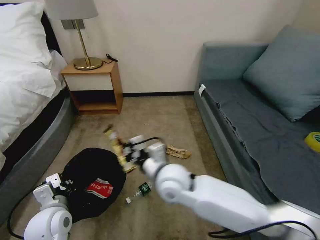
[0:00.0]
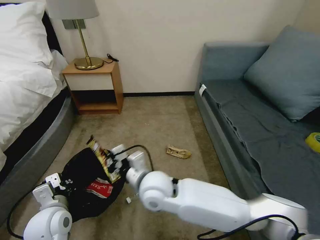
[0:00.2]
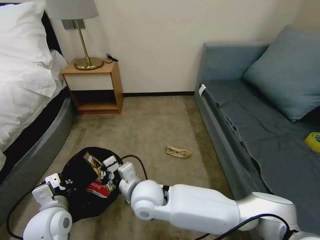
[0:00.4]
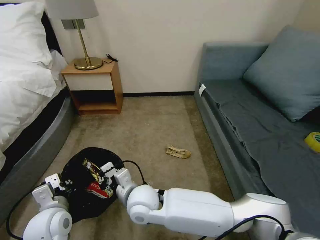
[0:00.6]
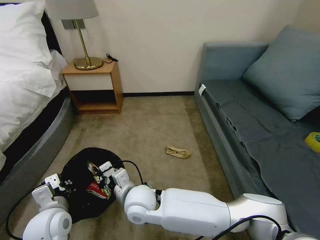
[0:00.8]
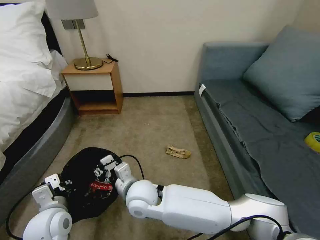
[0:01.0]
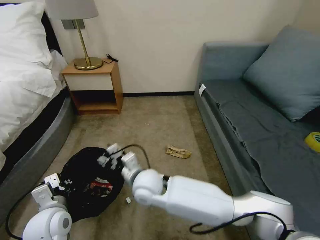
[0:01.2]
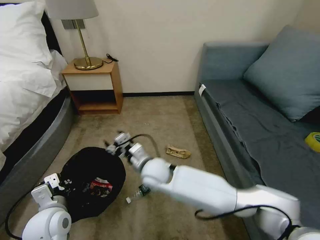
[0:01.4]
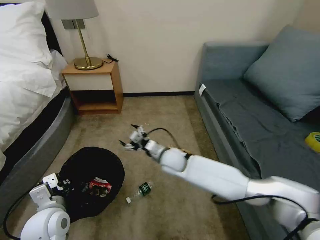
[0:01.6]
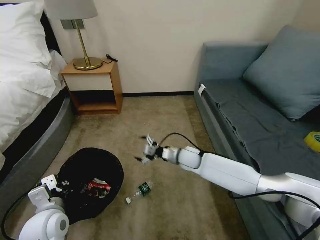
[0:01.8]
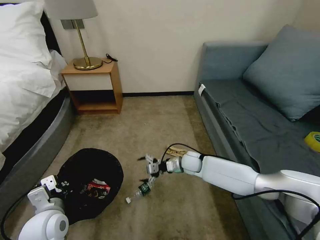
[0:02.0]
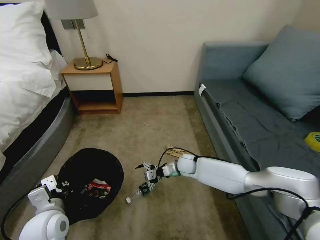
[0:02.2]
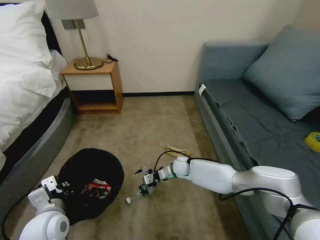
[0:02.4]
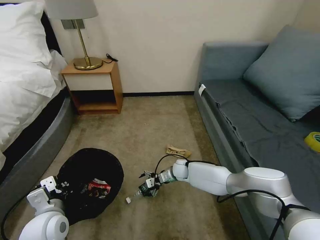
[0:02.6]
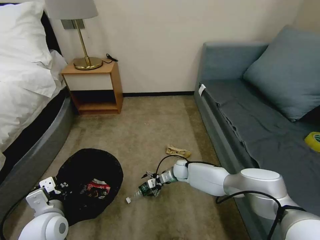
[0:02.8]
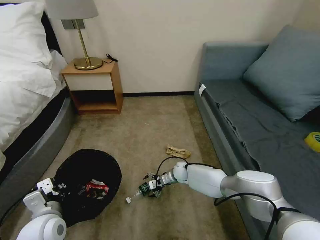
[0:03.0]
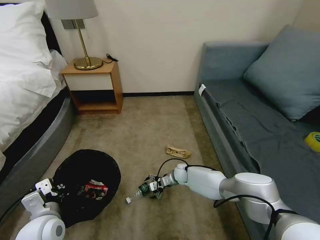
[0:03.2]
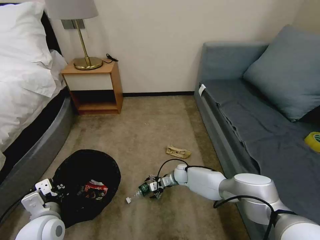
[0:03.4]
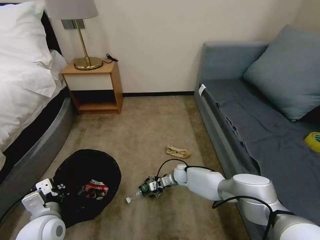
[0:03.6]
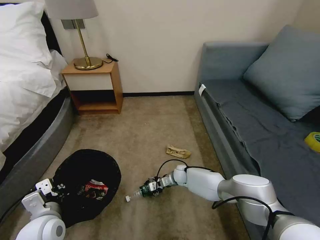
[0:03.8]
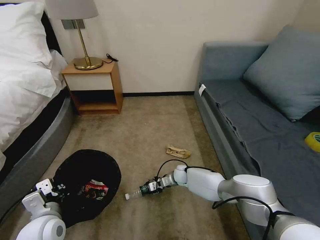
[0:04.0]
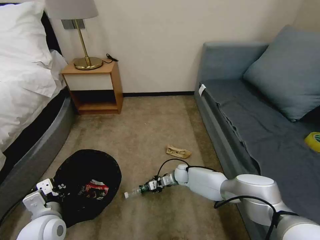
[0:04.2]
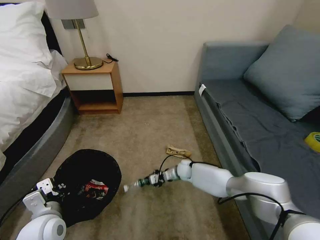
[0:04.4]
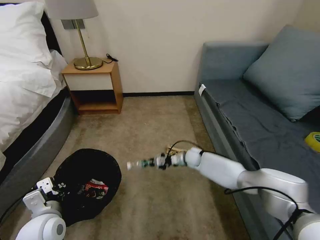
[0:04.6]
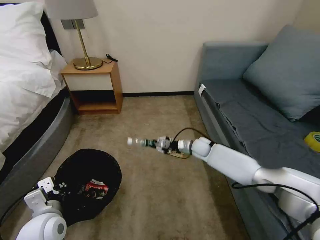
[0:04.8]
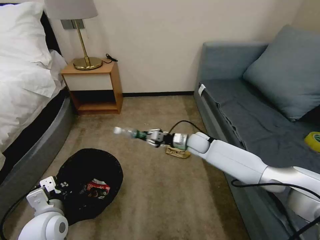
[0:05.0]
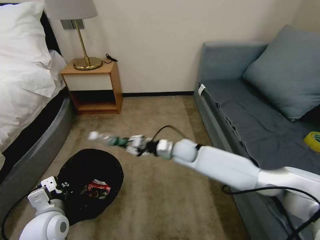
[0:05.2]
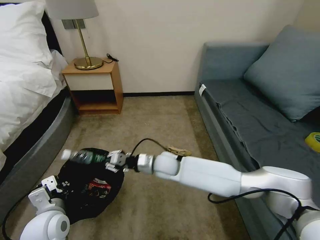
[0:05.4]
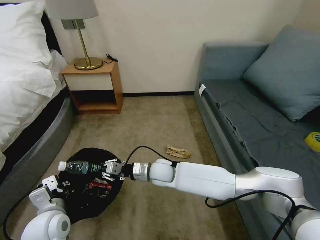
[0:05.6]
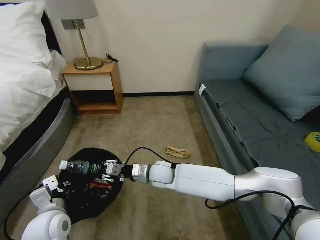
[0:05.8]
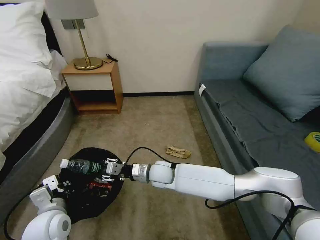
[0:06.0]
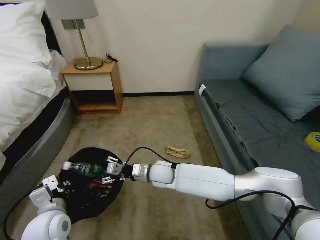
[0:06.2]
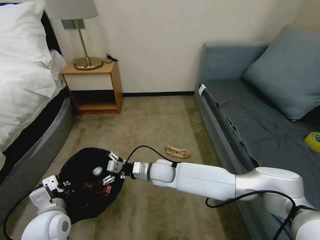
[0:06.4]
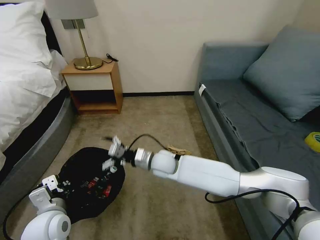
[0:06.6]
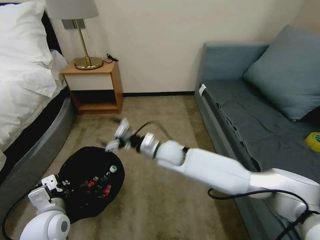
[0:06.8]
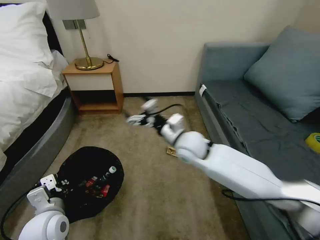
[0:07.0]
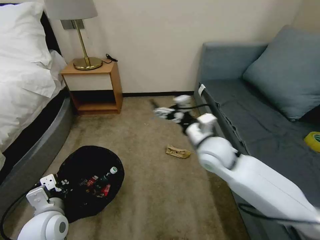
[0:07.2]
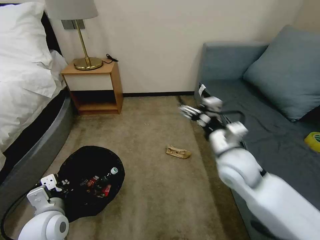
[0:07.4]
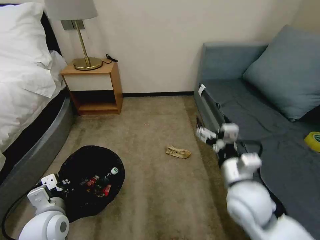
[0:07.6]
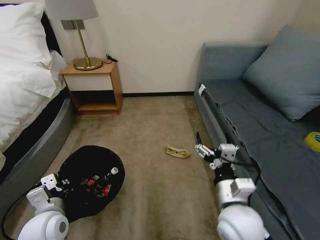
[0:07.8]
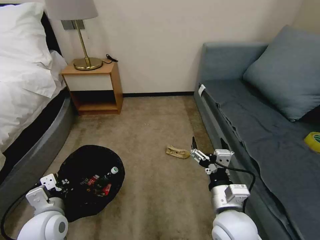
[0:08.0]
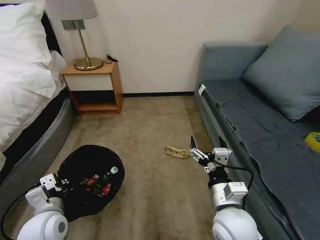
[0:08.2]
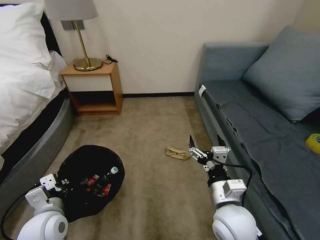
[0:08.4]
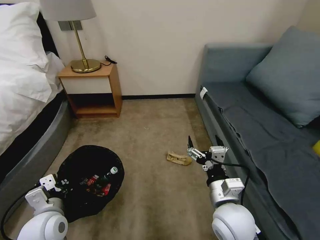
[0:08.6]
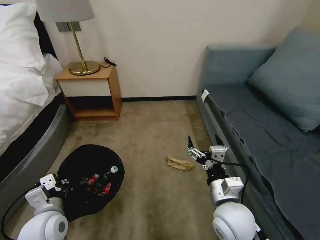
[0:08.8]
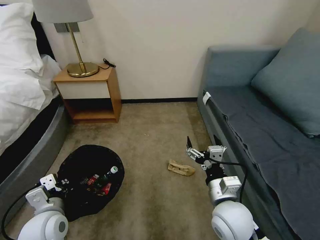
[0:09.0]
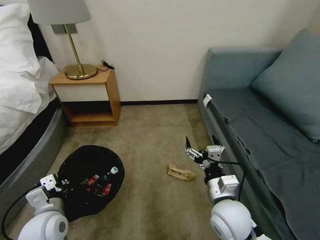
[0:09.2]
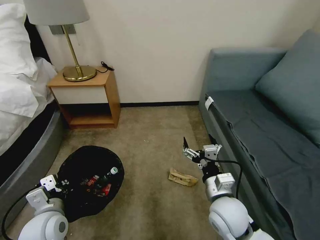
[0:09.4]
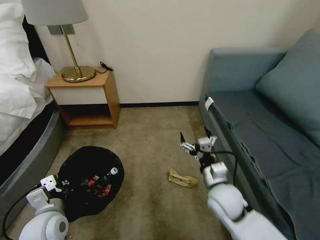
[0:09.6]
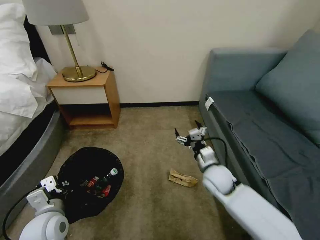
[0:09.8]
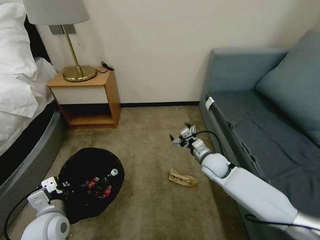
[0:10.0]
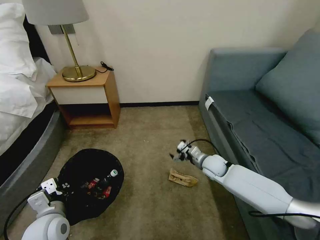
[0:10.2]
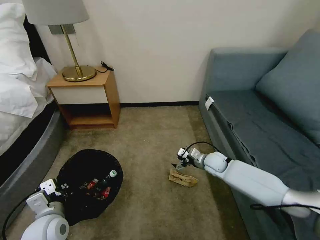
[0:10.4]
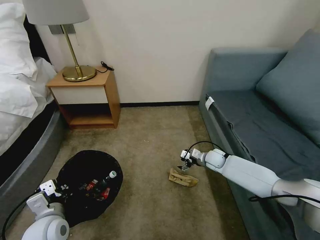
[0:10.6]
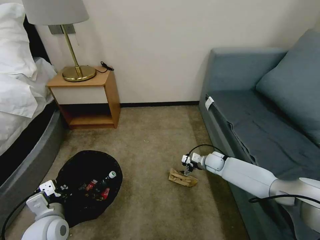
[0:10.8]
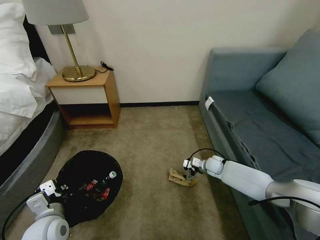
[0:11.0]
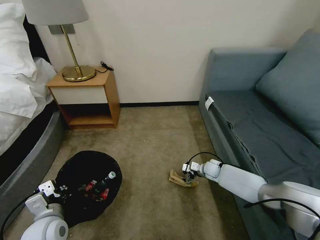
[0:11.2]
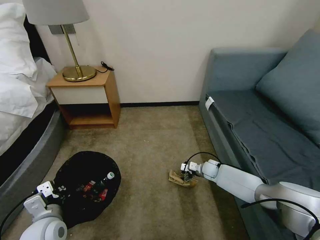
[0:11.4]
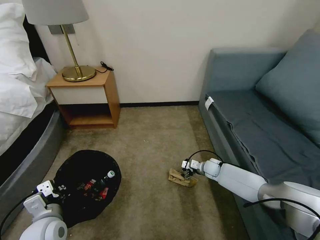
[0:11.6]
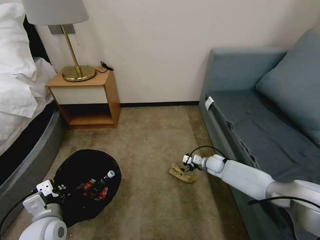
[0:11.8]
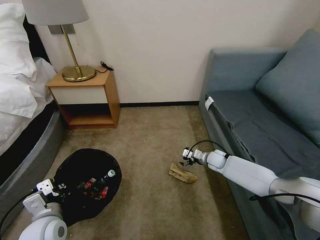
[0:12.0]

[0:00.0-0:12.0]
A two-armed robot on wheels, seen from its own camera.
Task of the whole recording: Pick up the trash bin, then pick up the garbage on the floor and place it into the trash bin.
0:00.0 to 0:01.6: The right gripper goes approximately 15 cm forward and downward, and opens up.
0:01.6 to 0:03.0: The right gripper shifts roughly 15 cm downward.
0:03.0 to 0:04.4: The right gripper closes up.
0:04.4 to 0:06.0: The right gripper moves upward, to the left and backward, some 20 cm.
0:06.0 to 0:07.6: The right gripper goes approximately 30 cm to the right, upward and backward, and opens.
0:07.6 to 0:09.0: The right gripper shifts approximately 5 cm downward.
0:09.0 to 0:10.4: The right gripper shifts some 25 cm forward and downward.
0:10.4 to 0:12.0: The right gripper travels downward and back again, roughly 10 cm each way.

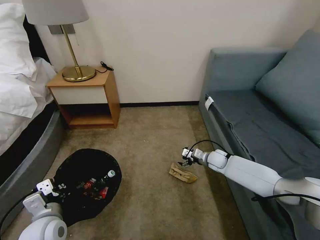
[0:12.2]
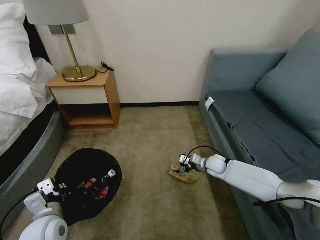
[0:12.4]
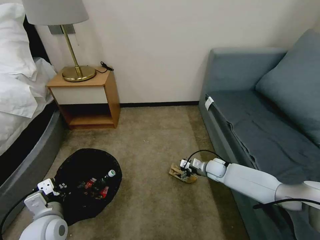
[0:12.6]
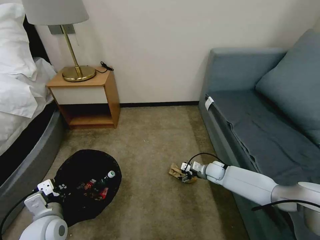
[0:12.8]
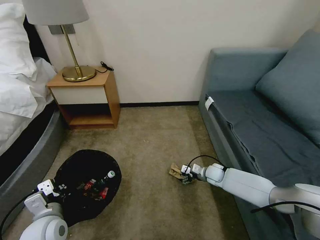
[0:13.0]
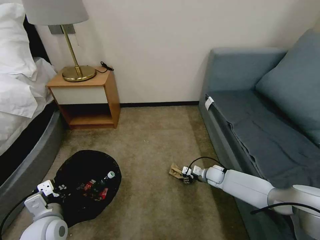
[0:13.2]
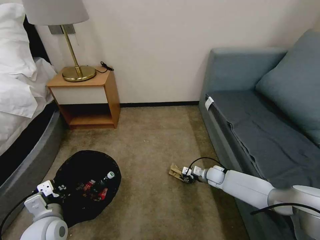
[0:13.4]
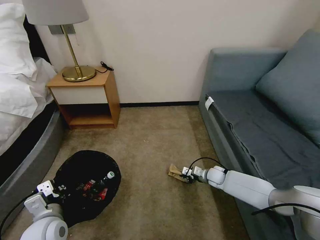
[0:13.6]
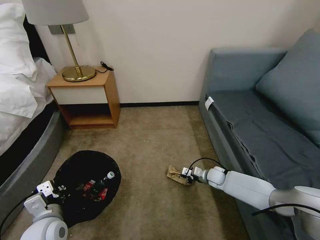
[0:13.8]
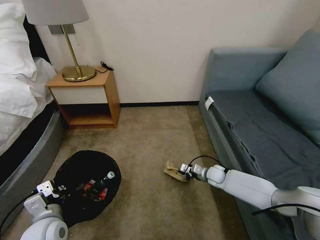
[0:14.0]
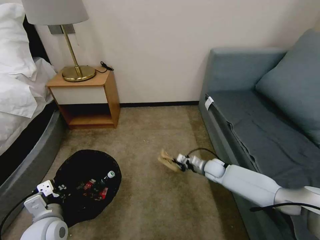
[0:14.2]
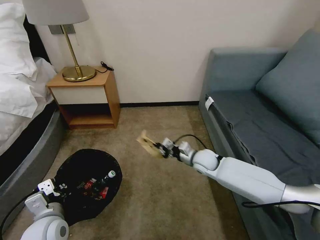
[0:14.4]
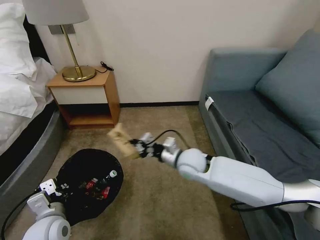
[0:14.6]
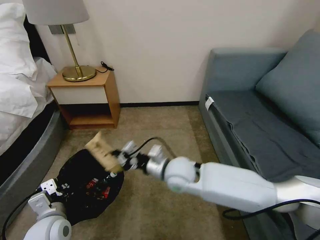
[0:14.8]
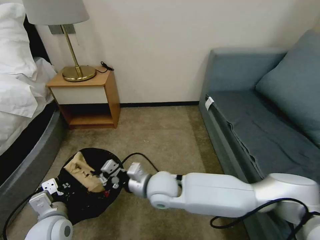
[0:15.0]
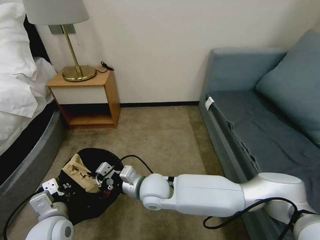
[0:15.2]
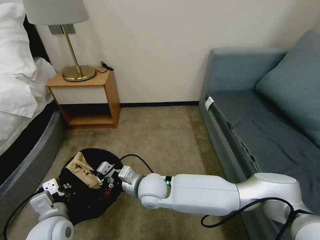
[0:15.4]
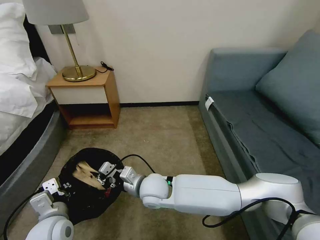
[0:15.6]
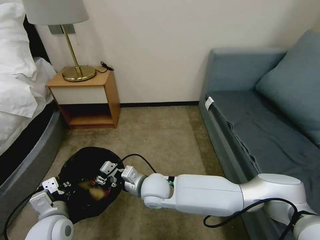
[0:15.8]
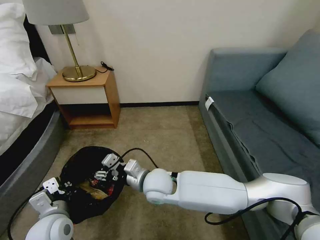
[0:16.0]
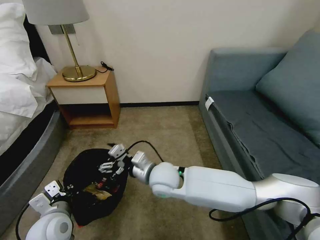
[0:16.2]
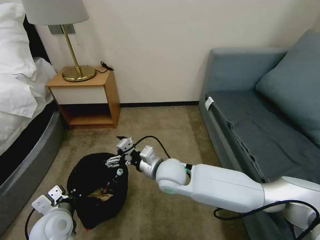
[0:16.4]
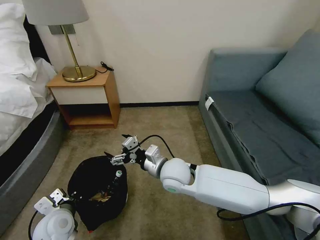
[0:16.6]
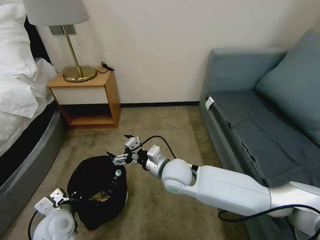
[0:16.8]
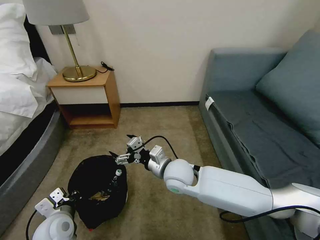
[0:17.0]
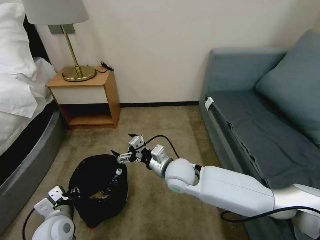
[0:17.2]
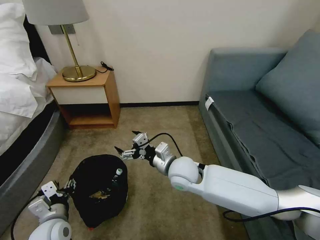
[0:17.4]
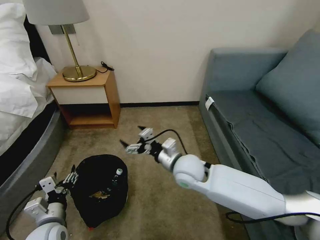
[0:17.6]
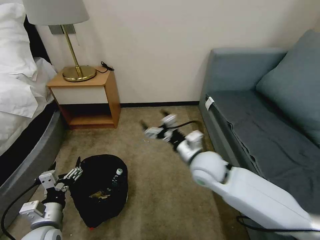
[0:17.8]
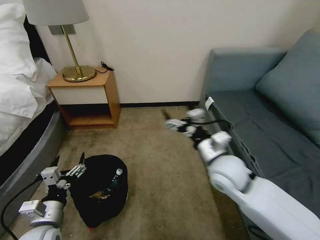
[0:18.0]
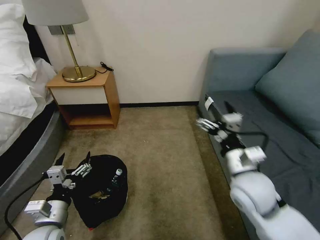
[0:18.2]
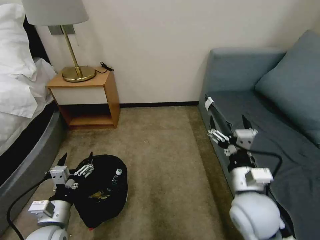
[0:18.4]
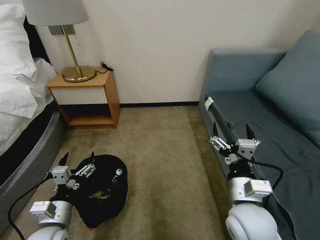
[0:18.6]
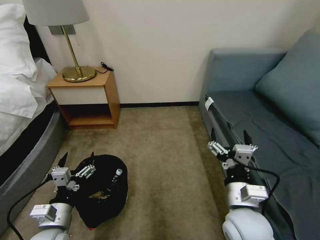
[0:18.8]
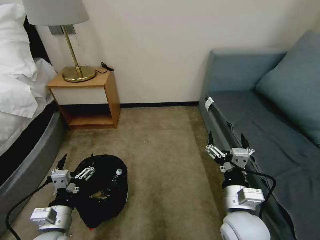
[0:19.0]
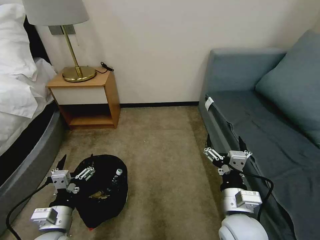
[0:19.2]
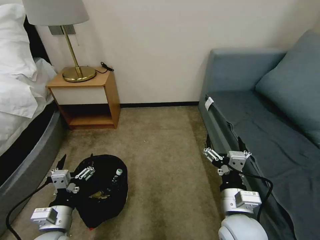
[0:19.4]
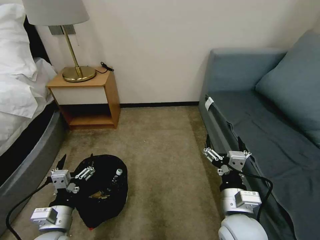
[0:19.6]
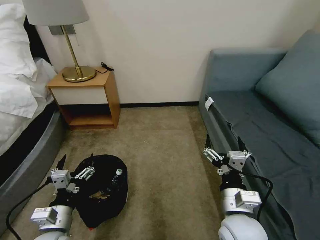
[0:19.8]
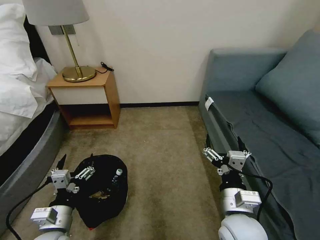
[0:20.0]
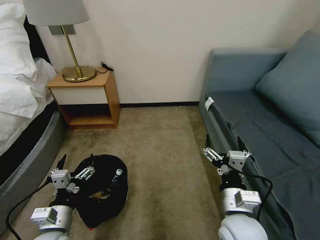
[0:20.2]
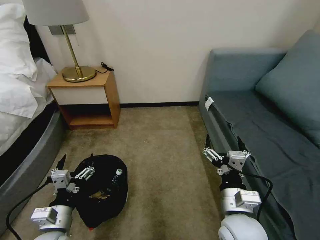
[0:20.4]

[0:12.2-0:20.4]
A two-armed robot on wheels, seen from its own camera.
Task of the whole recording: Pick up the trash bin, then pick up the garbage on the floor and place it into the trash bin.
0:12.2 to 0:13.8: The right gripper goes some 5 cm downward, and closes.
0:13.8 to 0:15.4: The right gripper travels to the left, upward and backward by some 40 cm.
0:15.4 to 0:17.2: The left gripper moves downward, some 5 cm, and opens its fingers. Meanwhile the right gripper shifts some 10 cm to the right, and opens its fingers.
0:17.2 to 0:18.8: The right gripper moves backward and to the right, about 20 cm, while the left gripper changes place by some 5 cm, and opens.
0:18.8 to 0:20.4: The grippers make only small movements.
